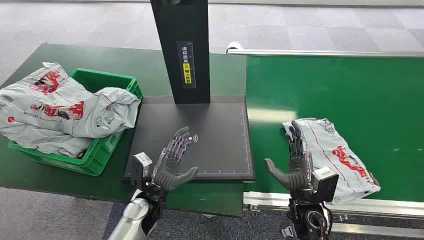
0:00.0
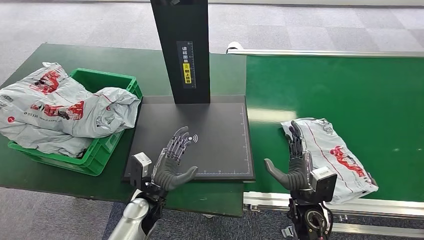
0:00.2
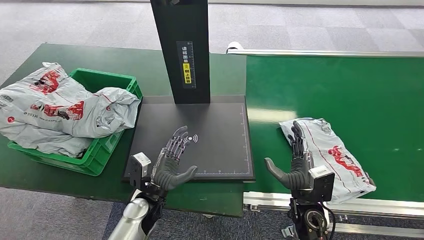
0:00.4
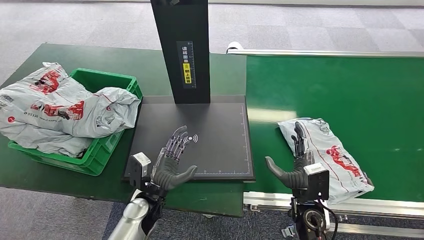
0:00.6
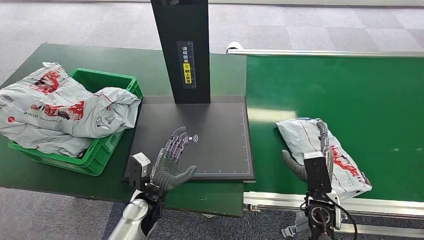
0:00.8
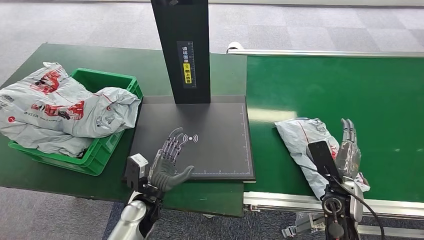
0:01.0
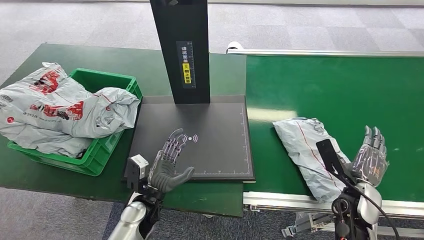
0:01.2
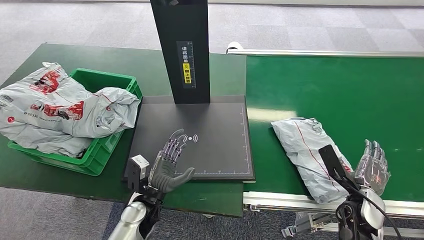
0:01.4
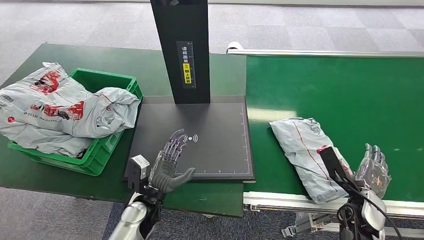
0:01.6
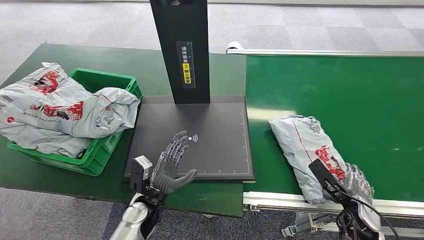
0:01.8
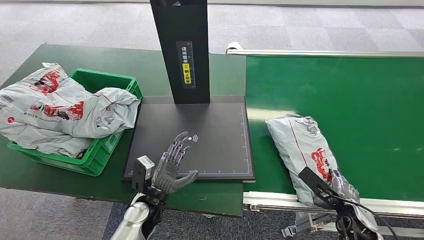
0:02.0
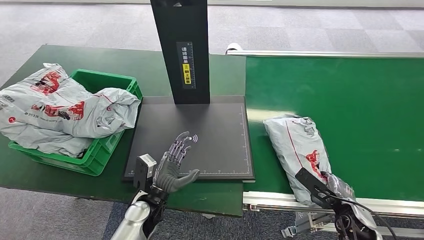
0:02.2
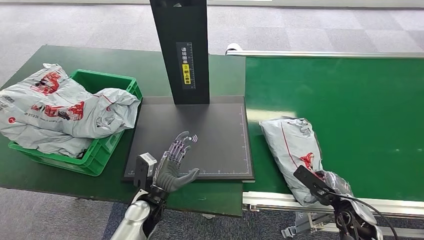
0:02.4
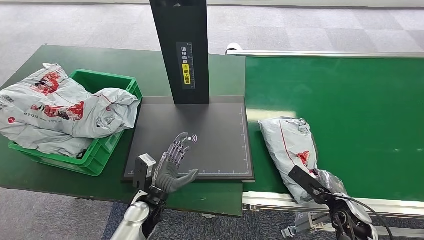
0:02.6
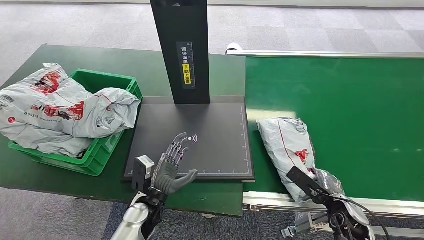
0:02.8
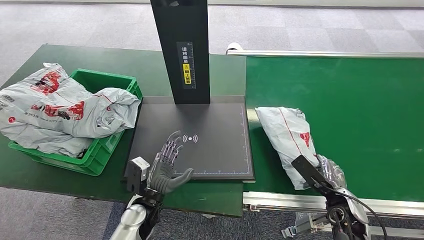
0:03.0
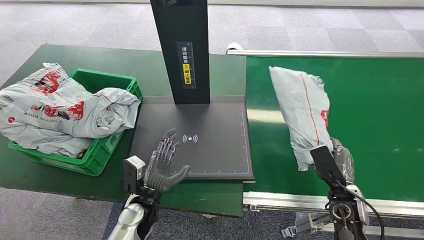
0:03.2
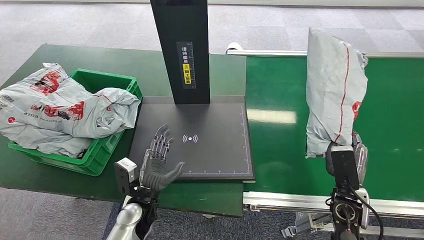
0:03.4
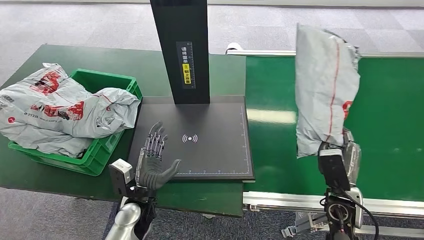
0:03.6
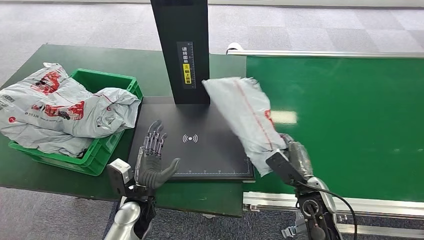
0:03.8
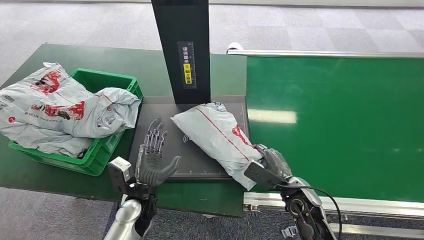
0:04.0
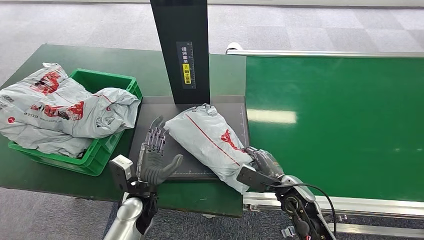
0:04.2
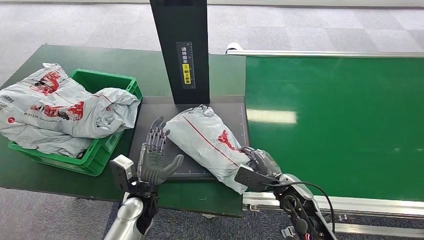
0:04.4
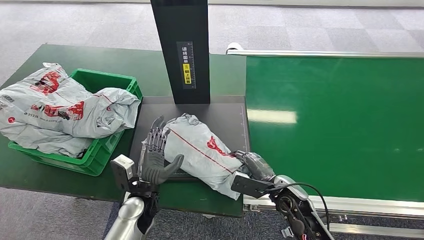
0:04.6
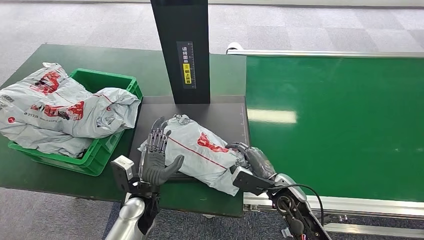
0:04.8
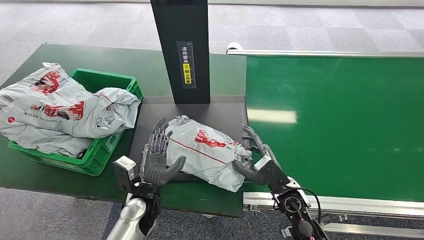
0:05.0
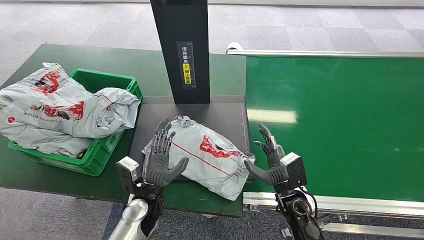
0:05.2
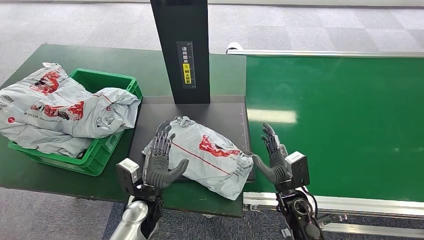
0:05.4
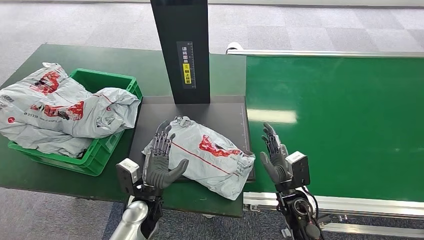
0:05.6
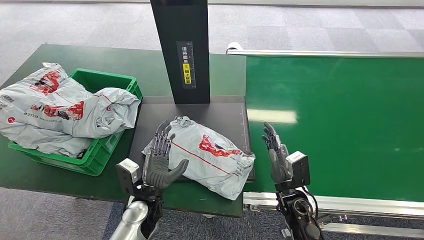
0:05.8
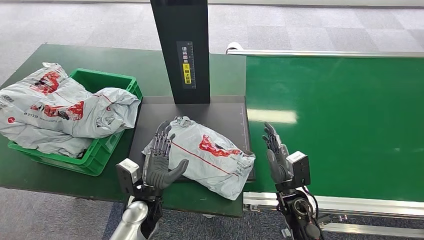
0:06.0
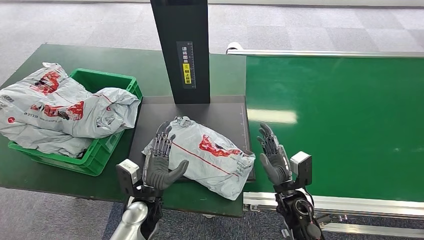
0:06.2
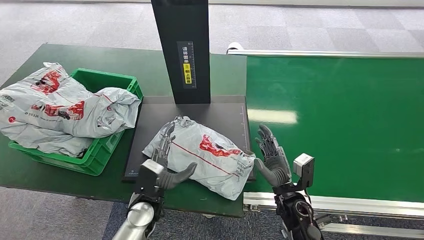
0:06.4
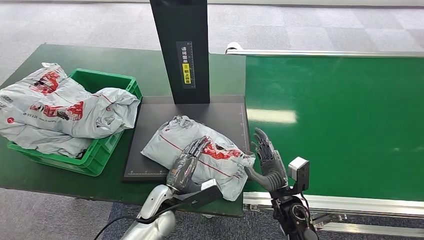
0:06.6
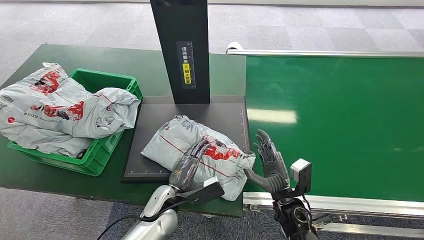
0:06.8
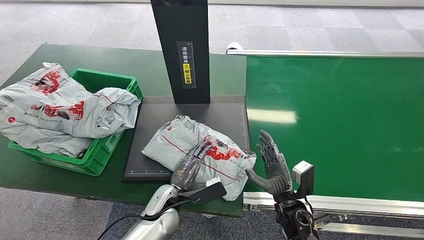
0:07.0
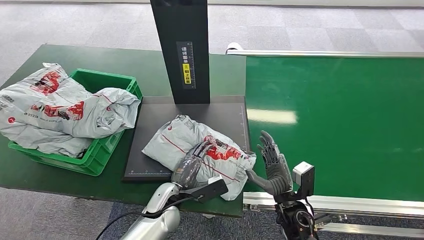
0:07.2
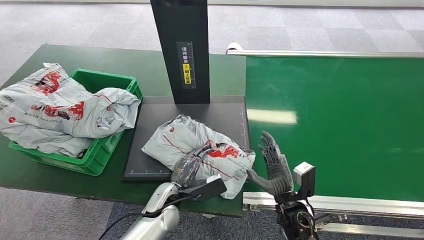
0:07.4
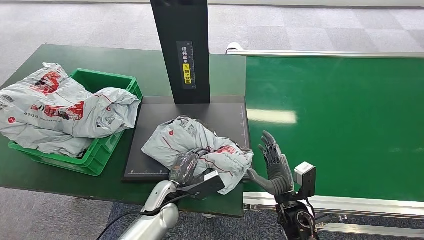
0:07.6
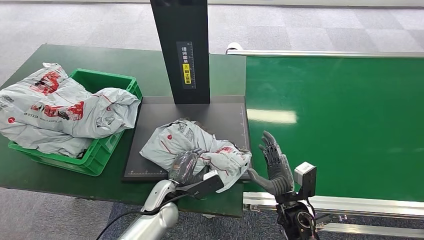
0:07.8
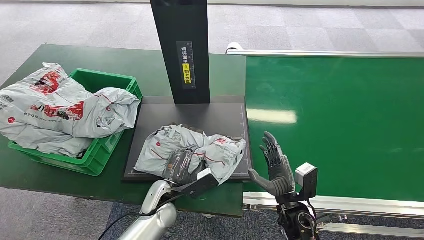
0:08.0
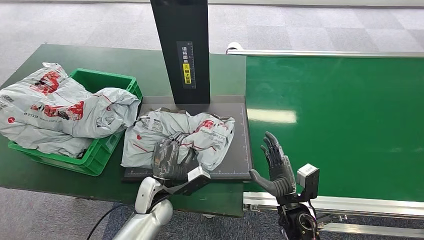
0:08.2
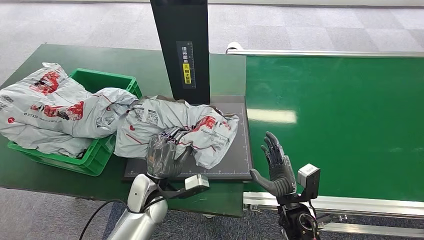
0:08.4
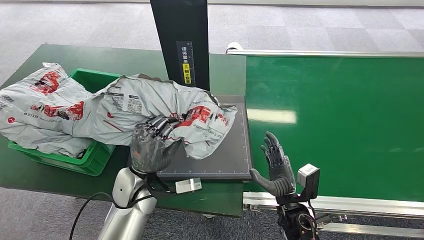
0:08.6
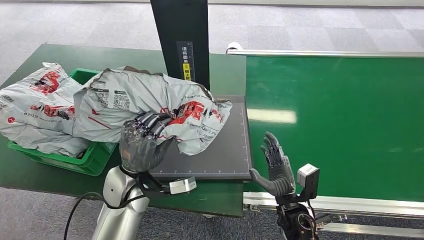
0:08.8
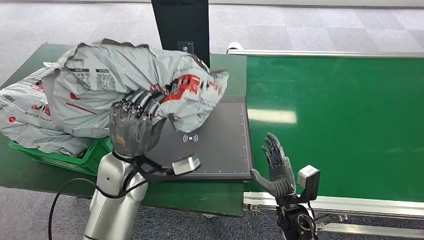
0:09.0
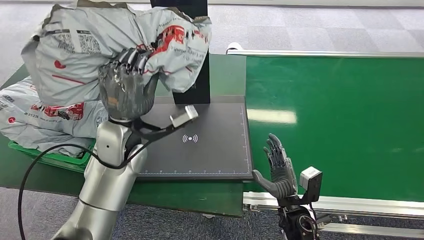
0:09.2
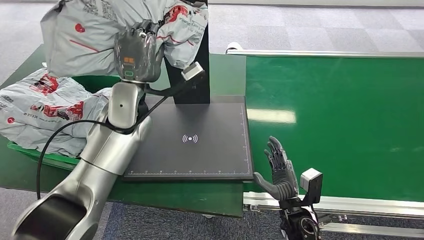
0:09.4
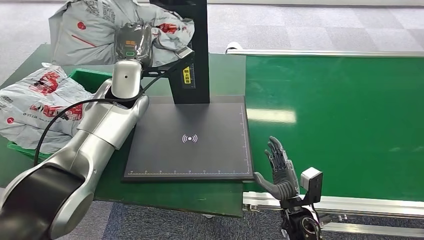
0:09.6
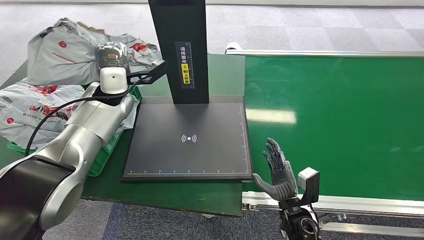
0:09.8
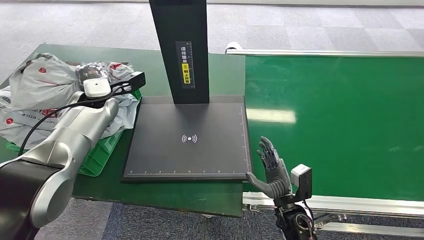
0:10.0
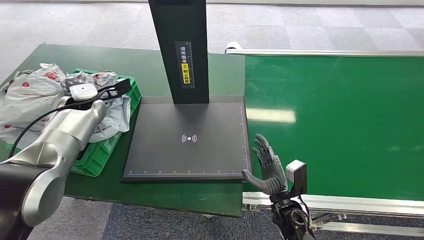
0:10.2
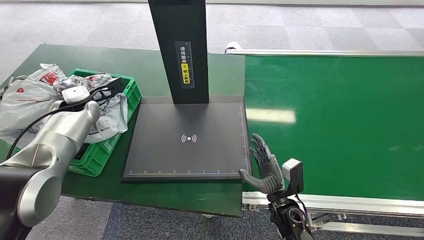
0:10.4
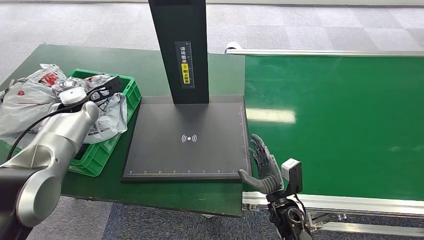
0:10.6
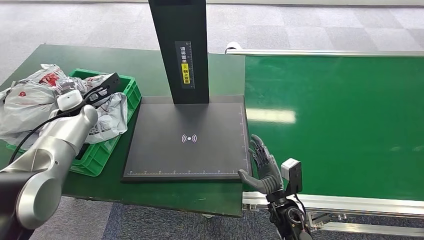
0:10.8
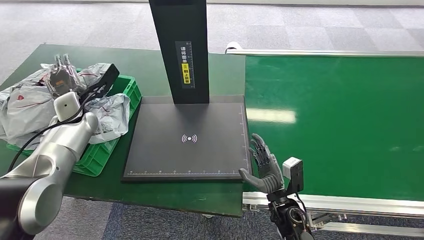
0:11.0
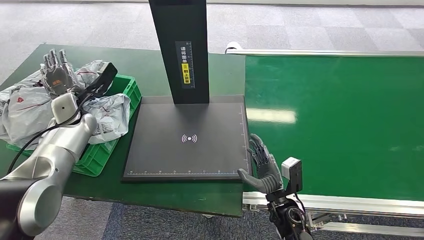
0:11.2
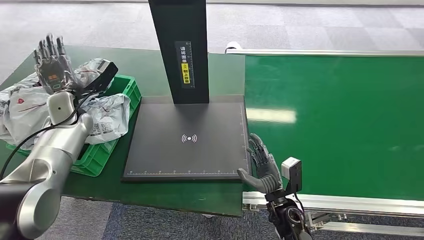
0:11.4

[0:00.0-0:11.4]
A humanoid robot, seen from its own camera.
Step, 0:00.0 to 0:03.6: Pick up the package from the conveyor belt.
Step, 0:04.0 to 0:05.2: Place the package onto the inbound machine.
Step, 0:05.4 to 0:08.8: Pick up the package from the inbound machine.
Step, 0:09.0 to 0:11.2: Place the package into the parcel locker.
0:02.8 to 0:04.2: The right hand heads to the left, covering approximately 15 cm.
0:07.2 to 0:08.6: The left hand goes approximately 10 cm upward.
0:10.0 to 0:11.4: The left hand shifts some 10 cm to the left.

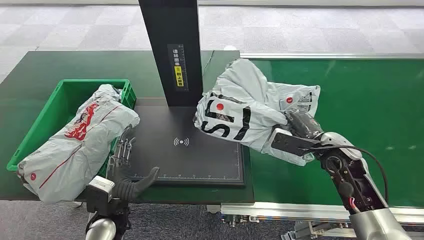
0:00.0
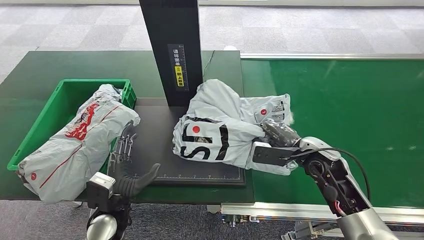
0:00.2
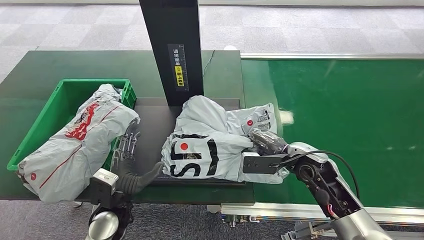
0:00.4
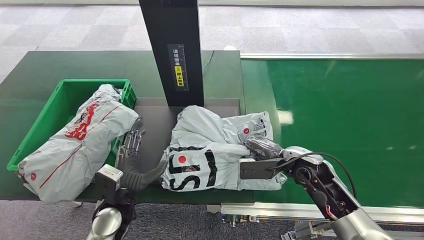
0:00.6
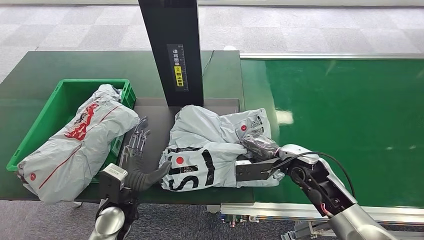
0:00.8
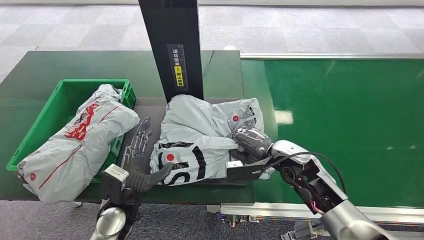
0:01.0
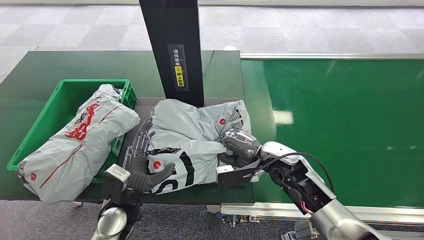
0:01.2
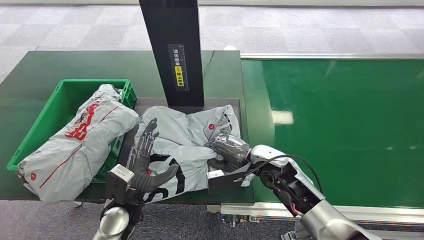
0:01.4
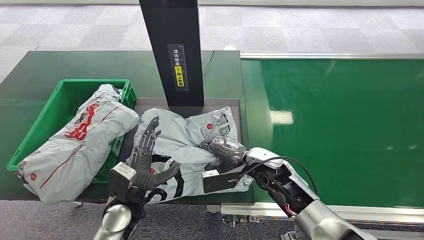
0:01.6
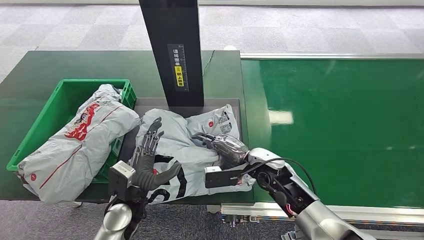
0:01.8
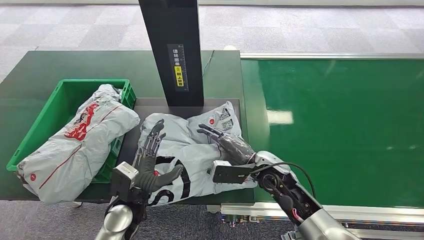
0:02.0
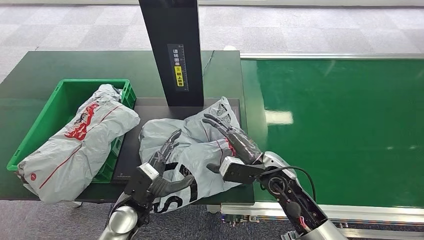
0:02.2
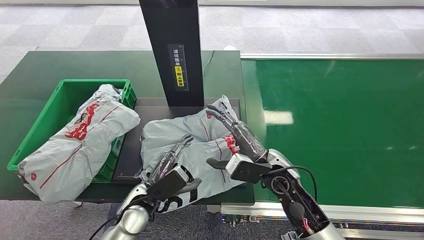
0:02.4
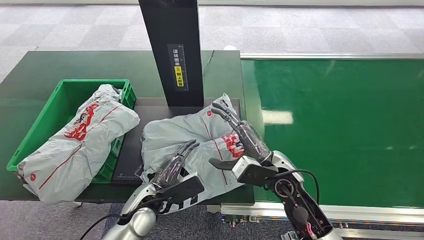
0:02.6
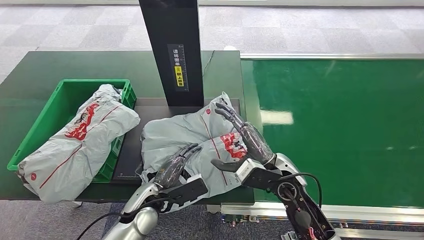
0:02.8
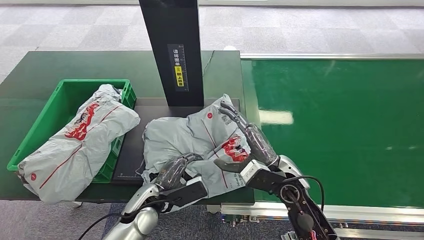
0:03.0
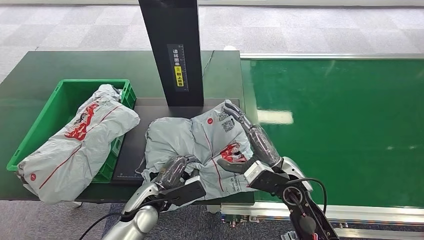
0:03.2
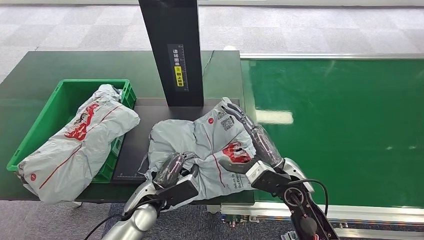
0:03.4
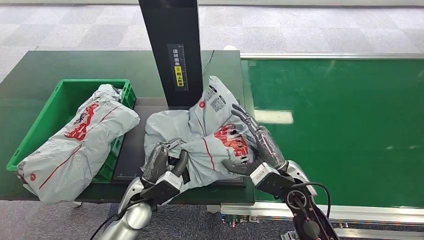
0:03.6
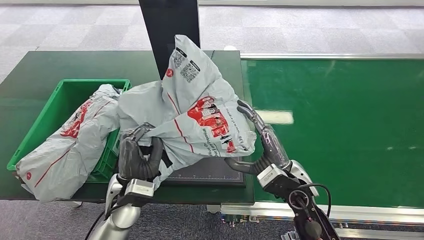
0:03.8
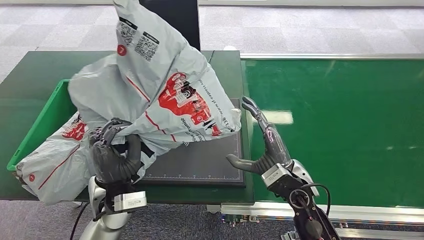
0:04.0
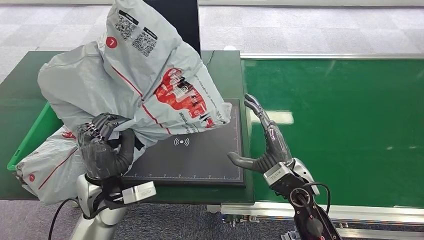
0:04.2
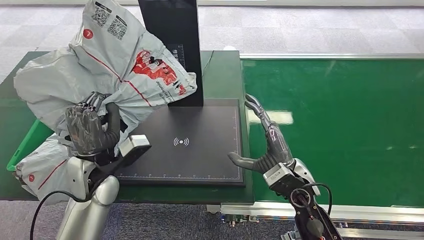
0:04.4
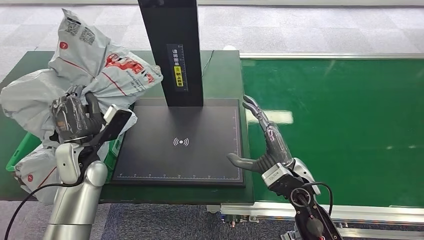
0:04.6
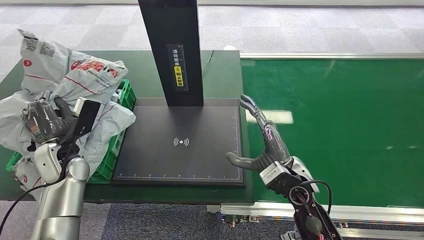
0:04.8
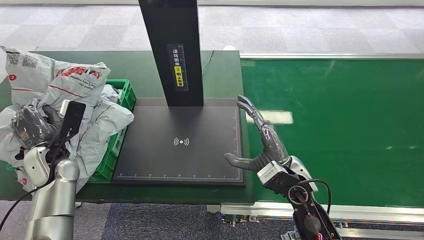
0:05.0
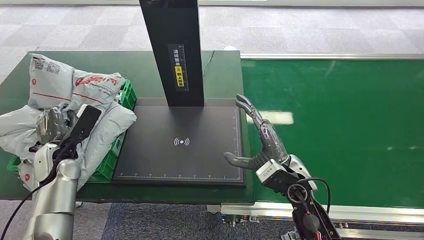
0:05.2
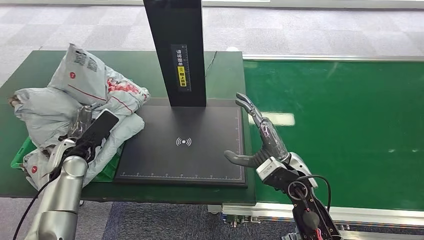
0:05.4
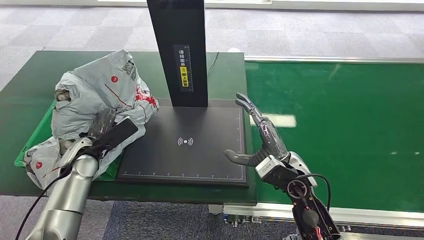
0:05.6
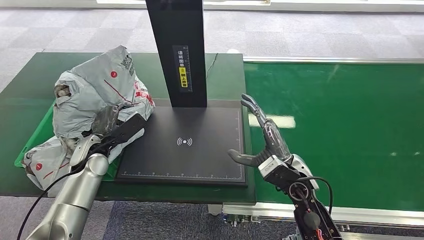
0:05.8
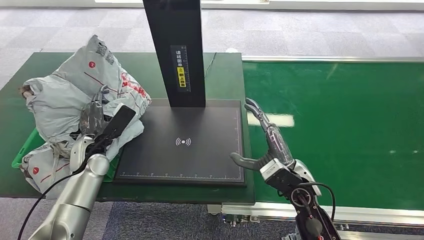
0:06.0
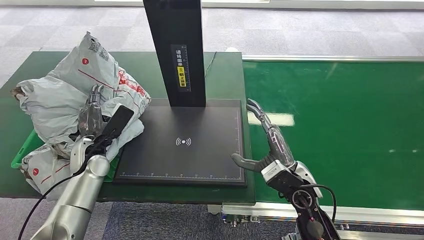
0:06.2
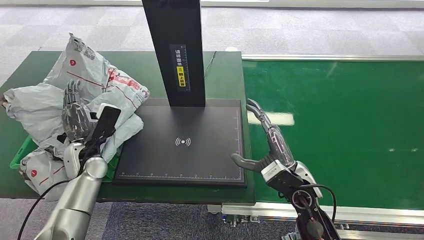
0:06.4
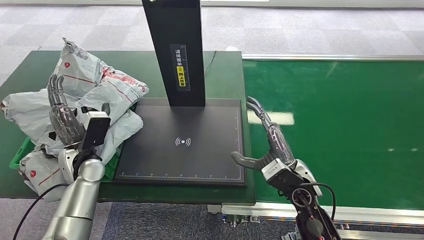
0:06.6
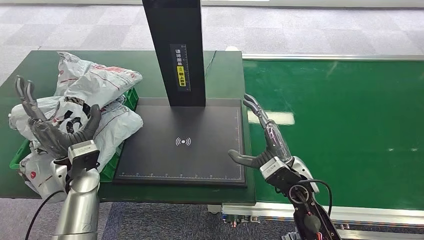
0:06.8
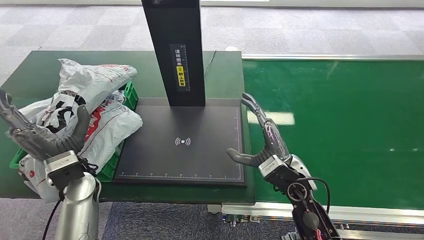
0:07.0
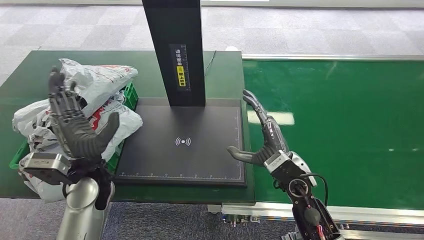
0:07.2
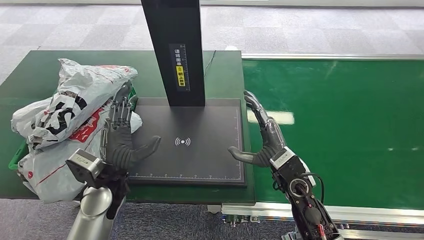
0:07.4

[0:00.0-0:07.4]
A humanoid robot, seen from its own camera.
0:01.4 to 0:03.0: The right hand is displaced backward by some 5 cm.
